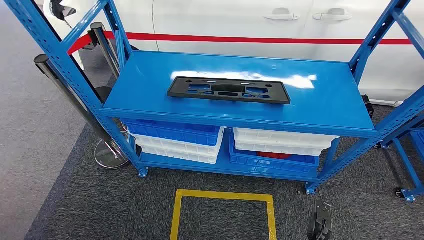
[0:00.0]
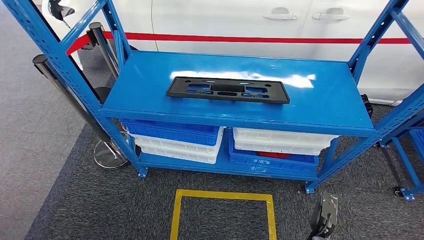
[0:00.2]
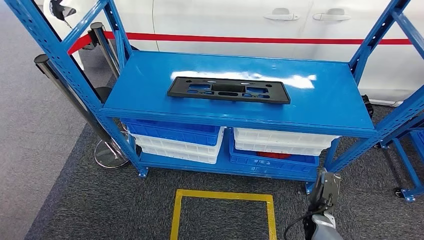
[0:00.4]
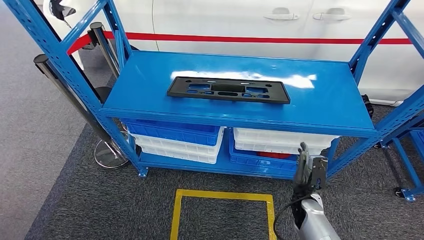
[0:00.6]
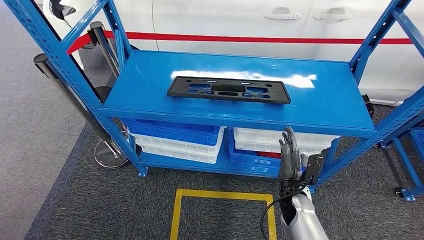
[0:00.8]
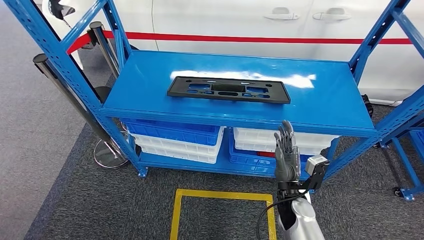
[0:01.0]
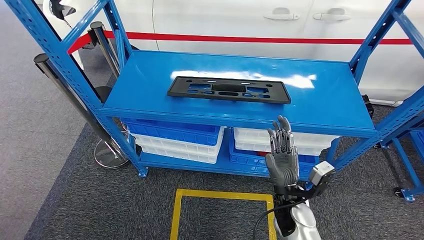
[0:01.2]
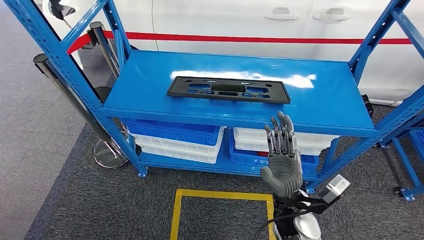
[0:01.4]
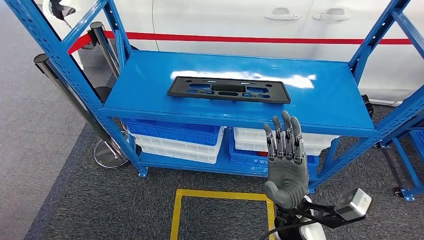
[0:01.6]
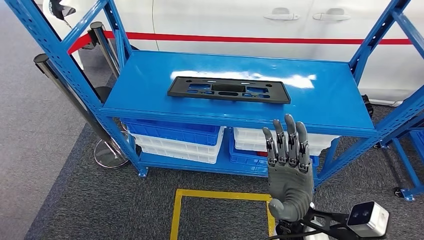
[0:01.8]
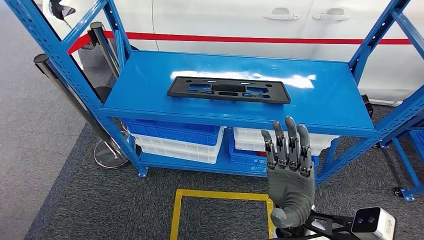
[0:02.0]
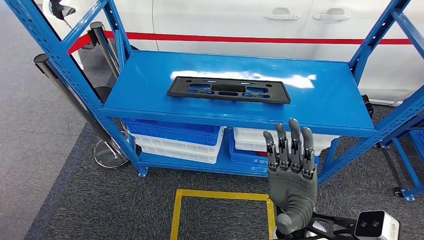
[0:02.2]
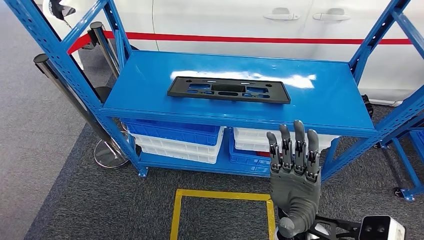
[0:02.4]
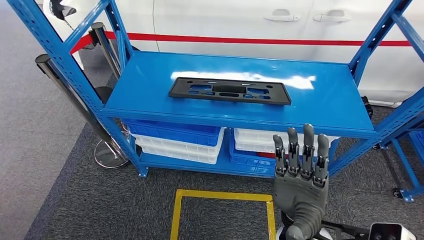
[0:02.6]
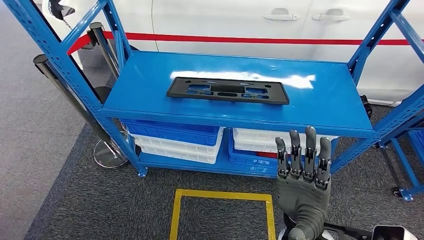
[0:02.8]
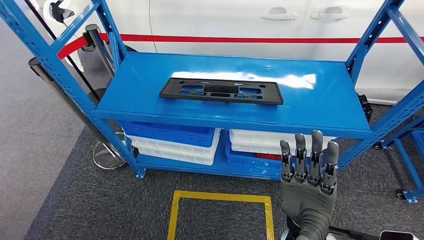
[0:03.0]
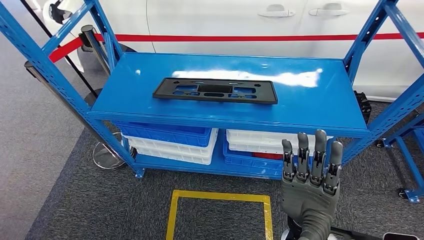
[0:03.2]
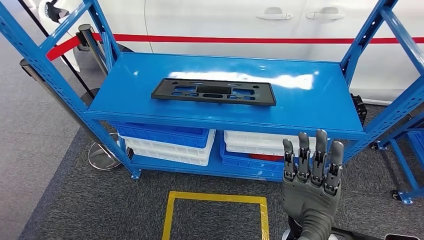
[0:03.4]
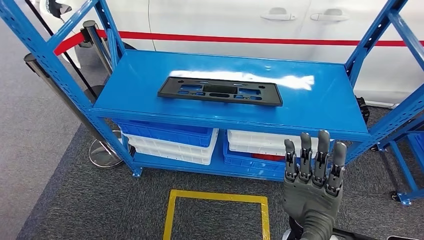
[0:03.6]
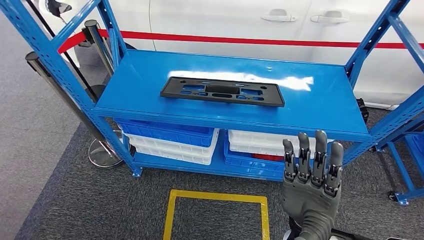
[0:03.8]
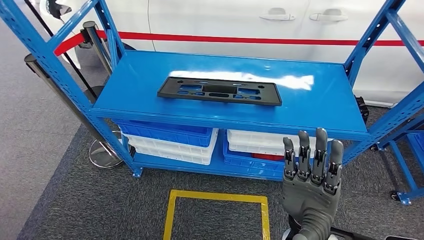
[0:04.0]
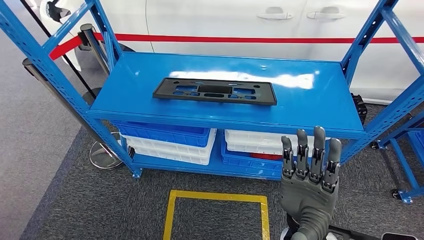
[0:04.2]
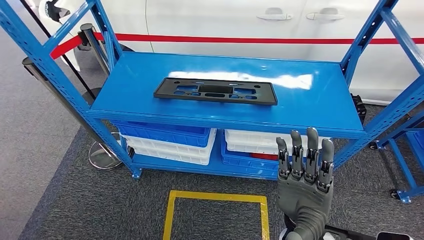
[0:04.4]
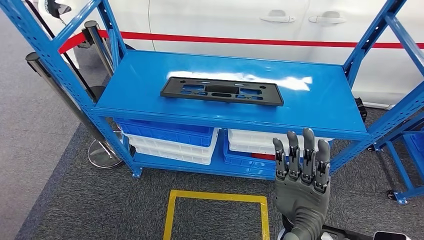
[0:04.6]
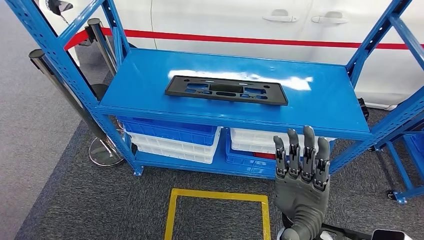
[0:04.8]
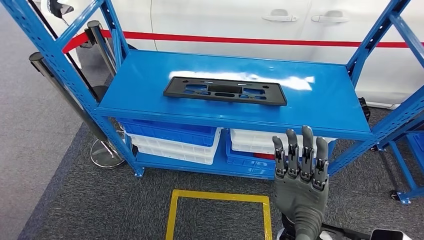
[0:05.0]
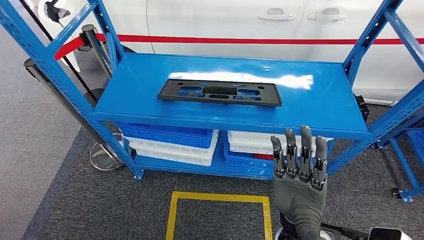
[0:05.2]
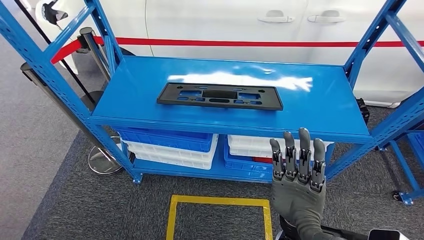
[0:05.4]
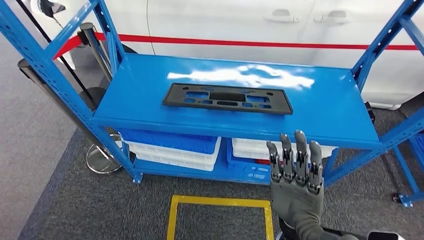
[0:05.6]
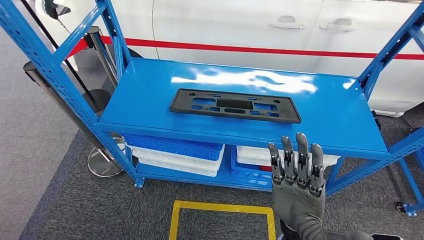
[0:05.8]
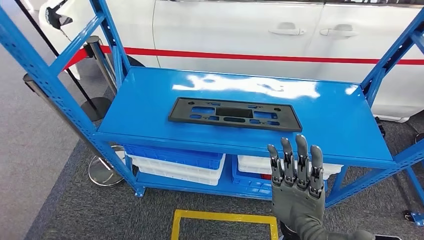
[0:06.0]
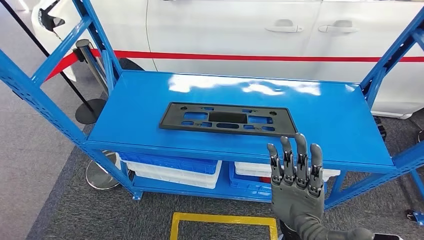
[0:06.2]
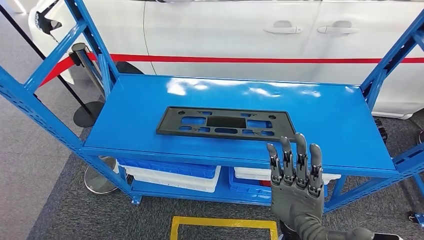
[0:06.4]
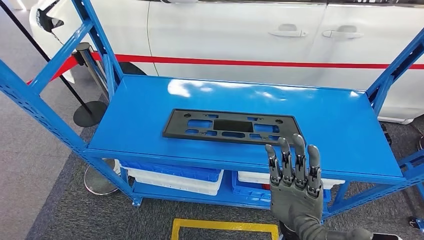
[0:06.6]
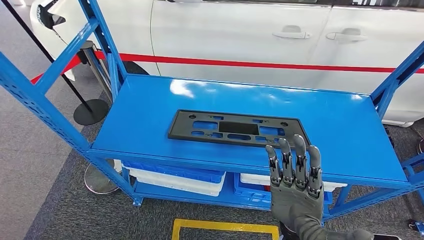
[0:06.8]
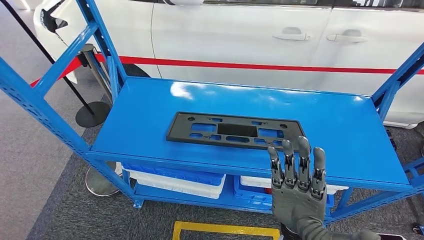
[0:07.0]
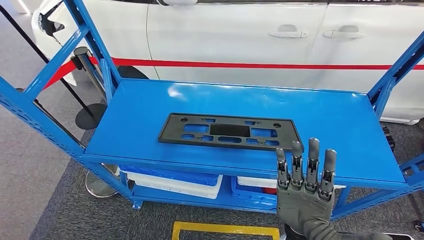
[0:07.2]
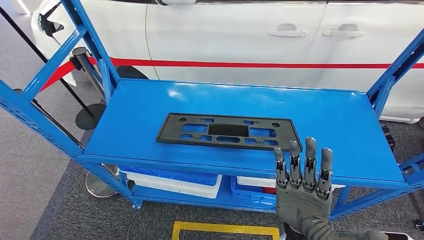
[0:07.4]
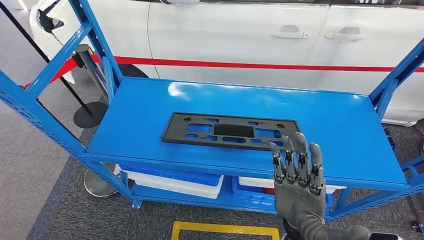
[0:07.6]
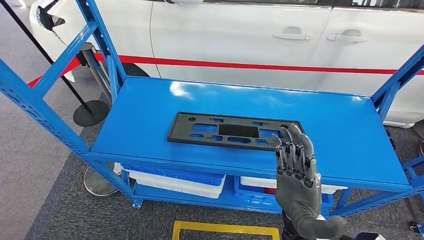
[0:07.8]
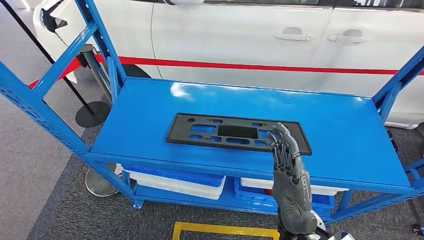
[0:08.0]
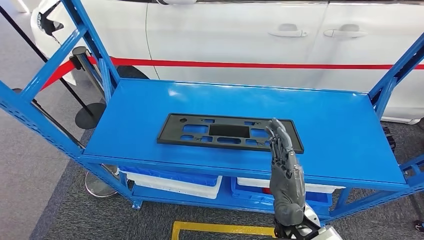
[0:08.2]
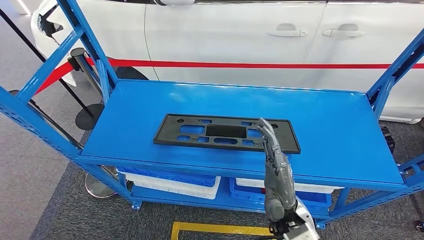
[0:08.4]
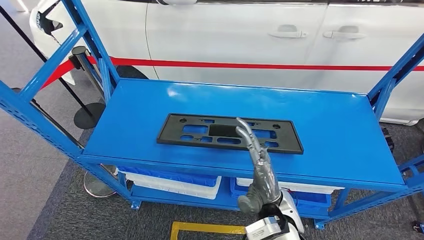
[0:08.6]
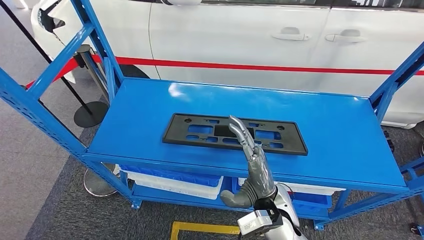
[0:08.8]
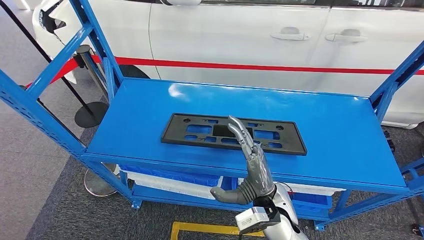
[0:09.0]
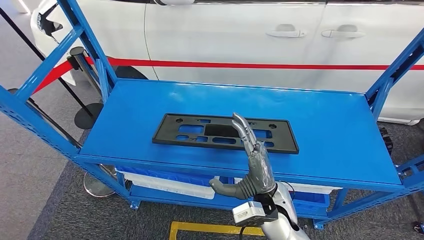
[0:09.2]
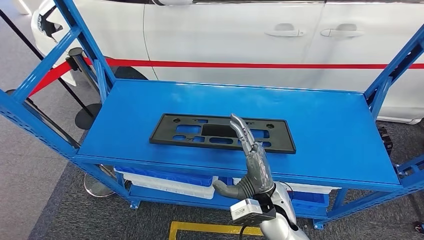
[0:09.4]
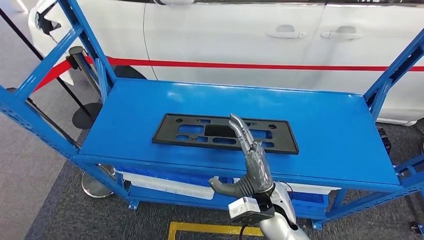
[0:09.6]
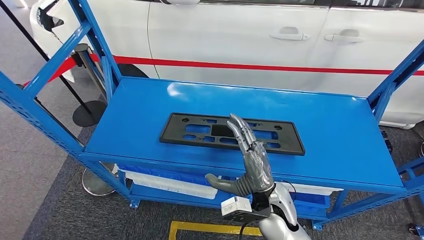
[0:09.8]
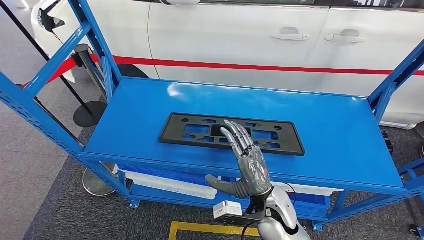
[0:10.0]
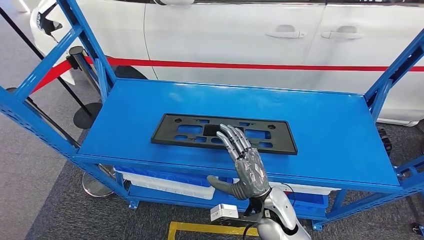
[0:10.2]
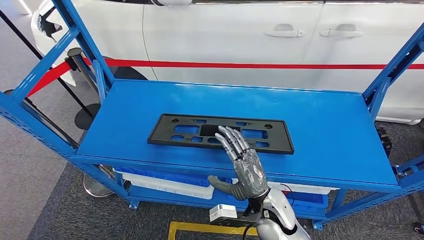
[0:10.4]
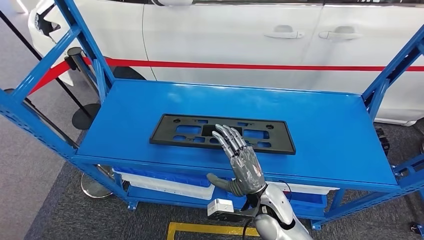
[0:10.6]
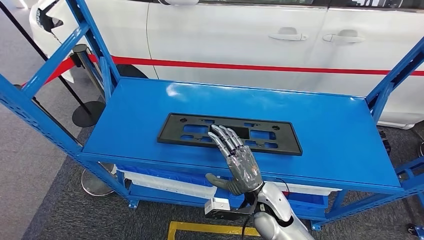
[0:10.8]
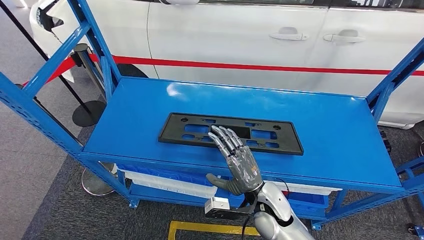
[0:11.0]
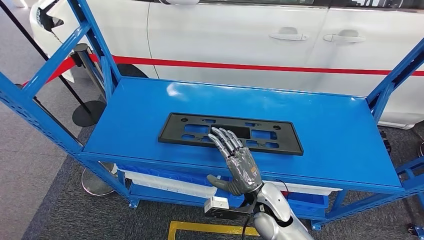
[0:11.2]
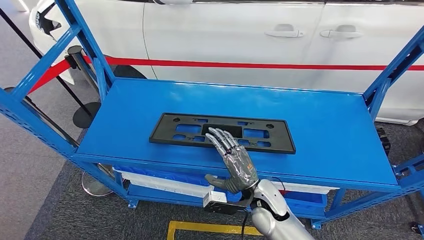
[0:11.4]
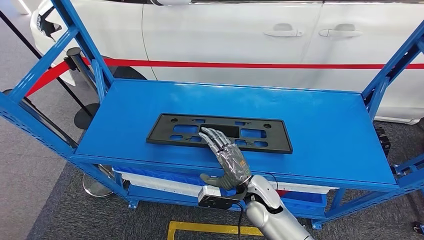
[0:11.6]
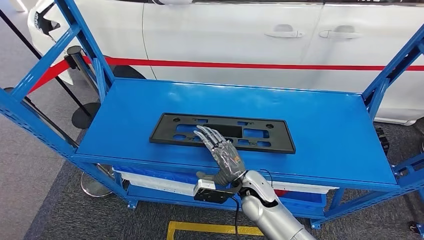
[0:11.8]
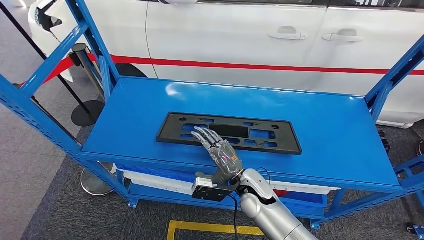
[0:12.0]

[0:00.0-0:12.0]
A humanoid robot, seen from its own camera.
0:03.0 to 0:04.4: The hands move only a little.
0:07.6 to 0:09.0: The right hand is displaced forward by approximately 5 cm.

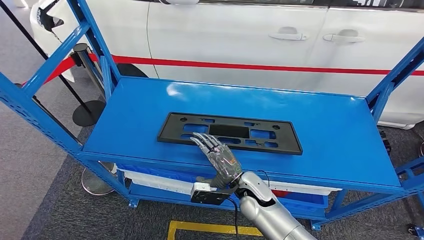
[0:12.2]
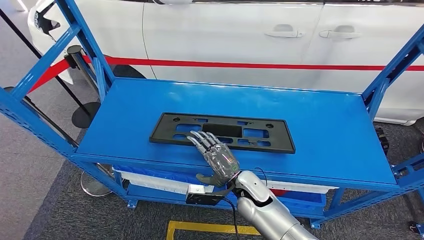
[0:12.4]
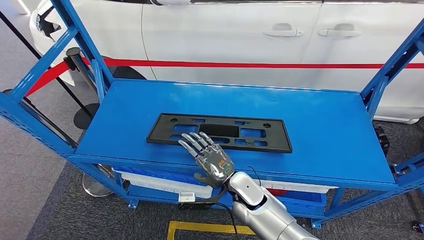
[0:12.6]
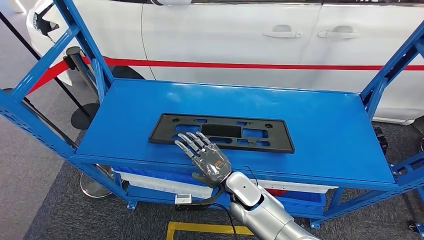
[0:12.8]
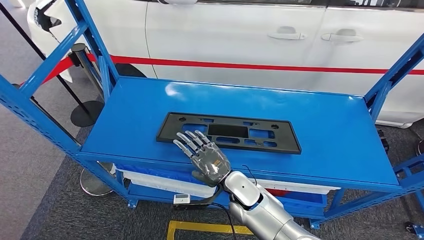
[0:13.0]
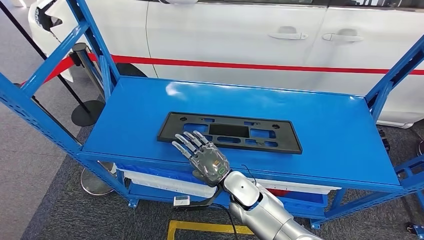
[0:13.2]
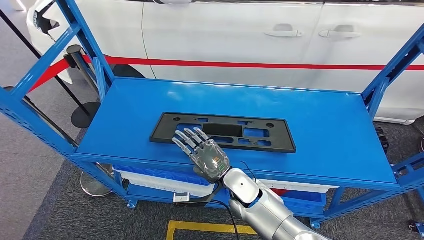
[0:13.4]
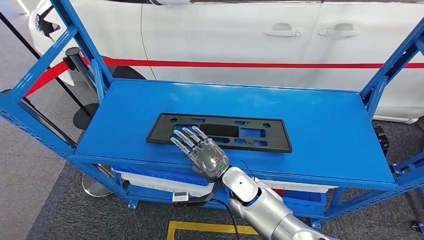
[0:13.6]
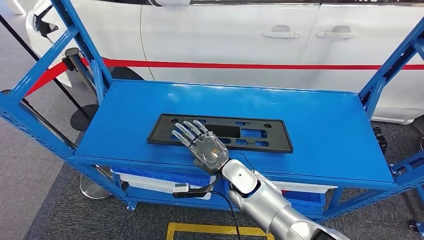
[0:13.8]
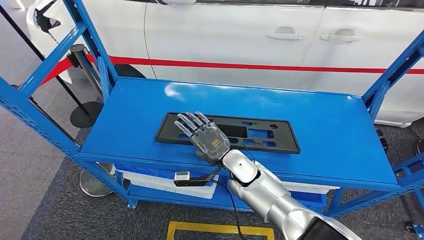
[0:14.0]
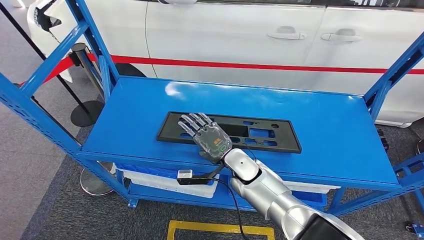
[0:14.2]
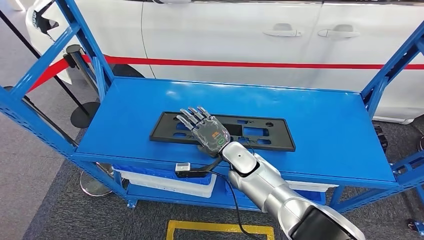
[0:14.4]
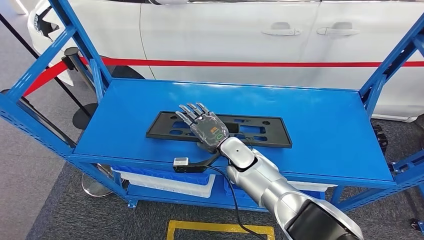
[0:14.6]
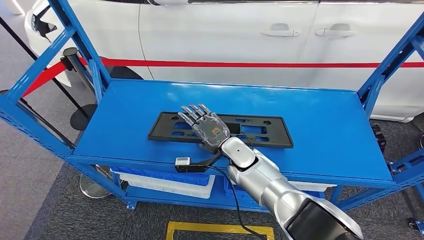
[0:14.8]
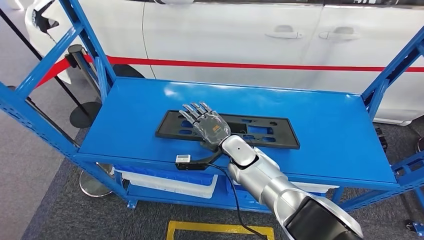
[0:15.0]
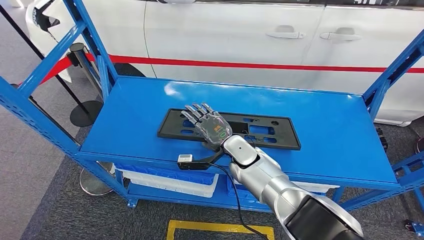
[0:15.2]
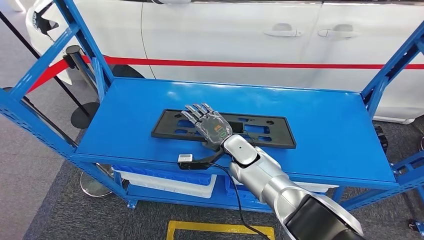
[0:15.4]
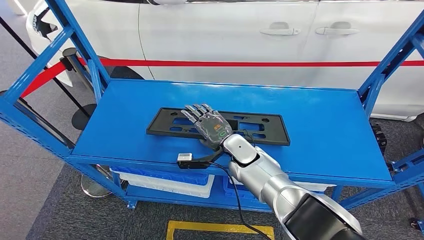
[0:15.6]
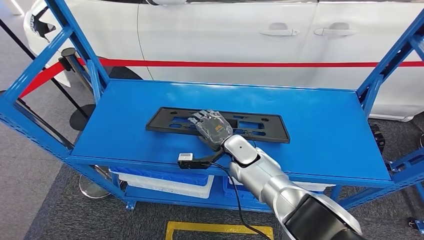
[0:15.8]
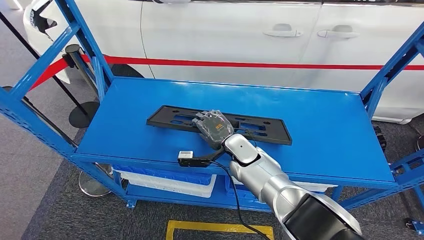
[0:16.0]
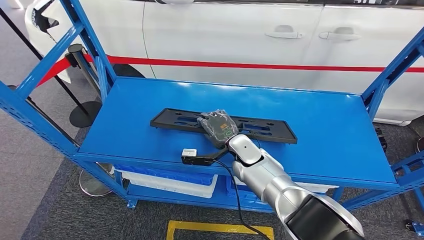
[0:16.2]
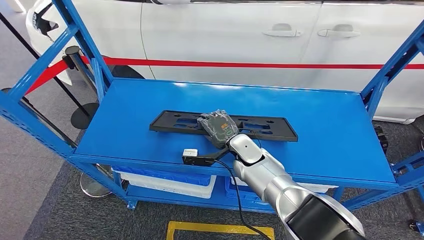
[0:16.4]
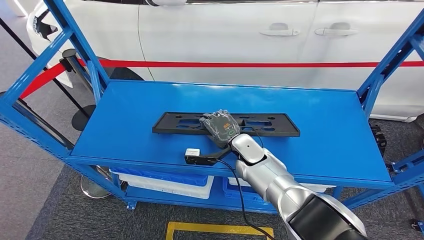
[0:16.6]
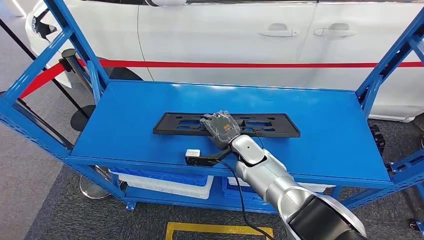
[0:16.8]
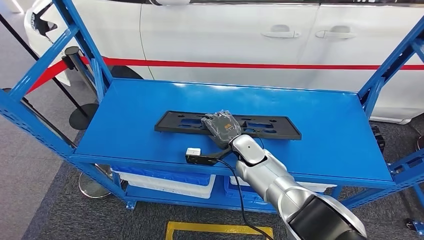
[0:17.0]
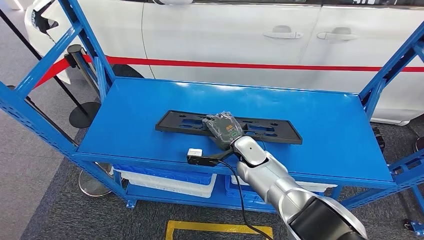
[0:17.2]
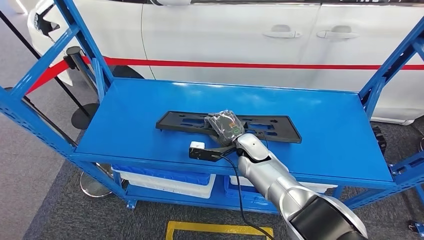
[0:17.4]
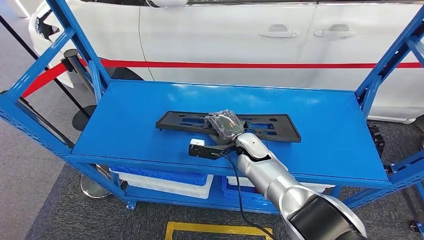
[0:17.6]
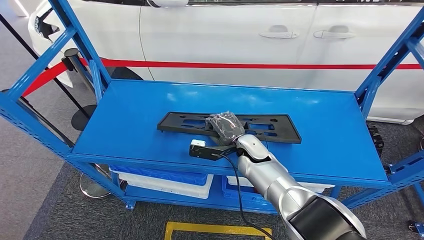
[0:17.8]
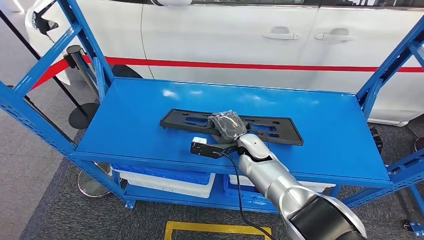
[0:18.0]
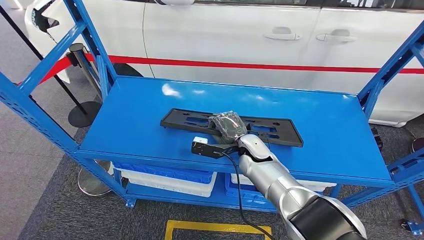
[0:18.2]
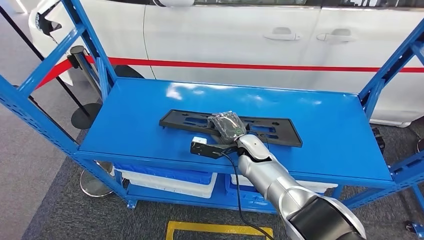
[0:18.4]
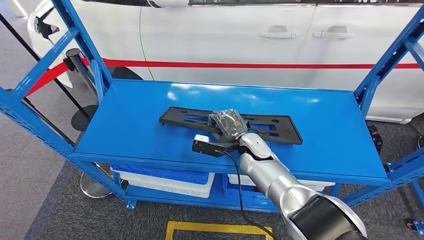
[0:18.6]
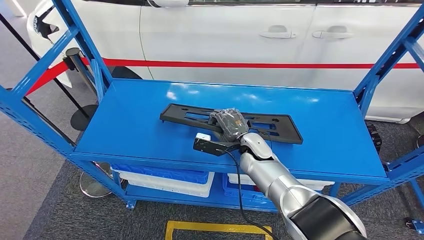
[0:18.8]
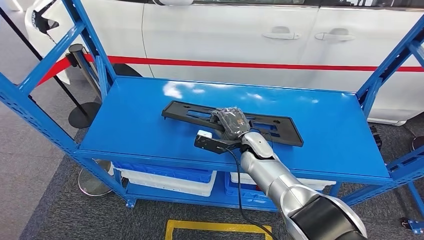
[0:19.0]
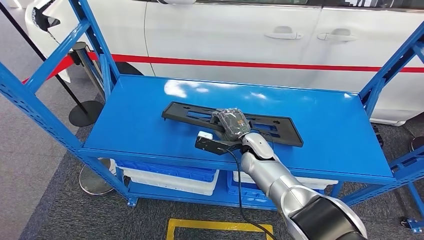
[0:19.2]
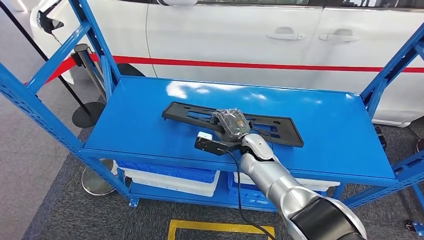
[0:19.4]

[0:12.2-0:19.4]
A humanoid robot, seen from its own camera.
0:18.0 to 0:19.4: The hands move only a little.
